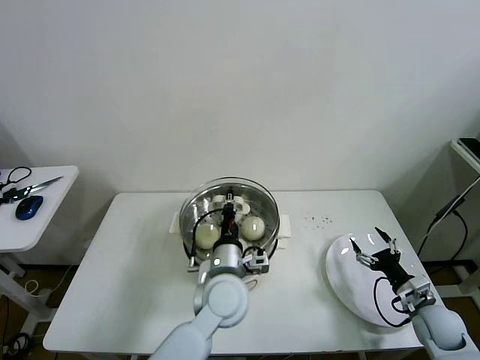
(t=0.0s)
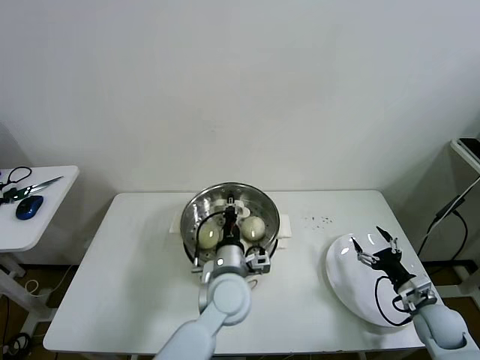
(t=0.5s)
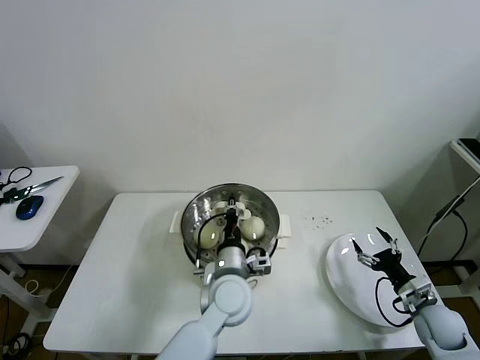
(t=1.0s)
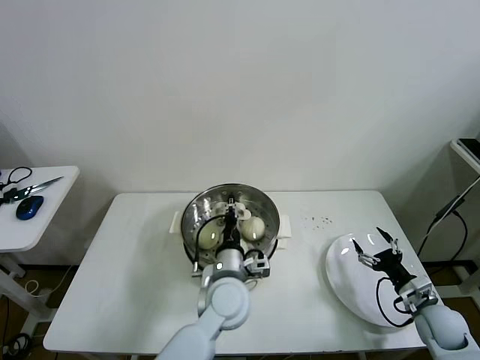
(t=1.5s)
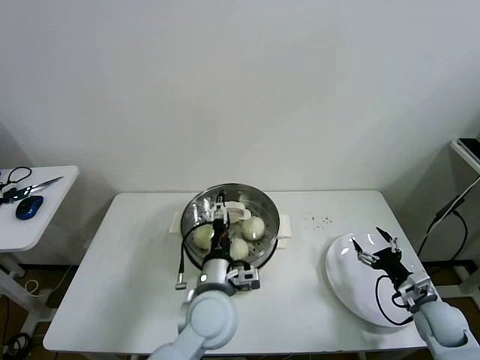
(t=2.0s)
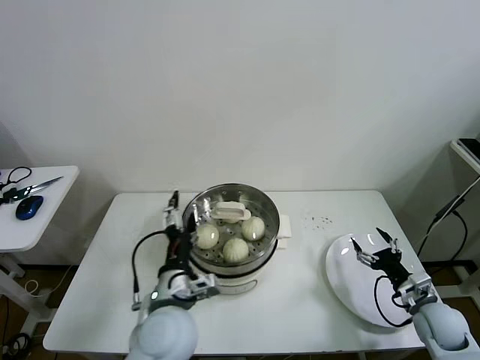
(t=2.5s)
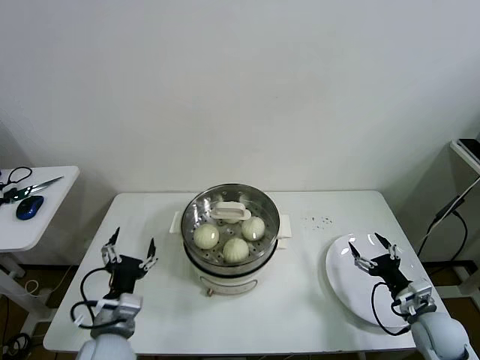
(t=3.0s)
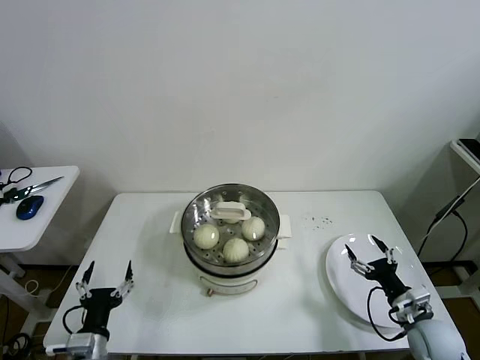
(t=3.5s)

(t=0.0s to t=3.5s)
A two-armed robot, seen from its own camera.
Task of the whole recording: take steamed baozi put them in steamer then cover it.
Step, t=0.0s - t=2.0s: Place the pot lid on the steamer with left gripper.
t=0.0s - t=2.0s: The left gripper opens.
t=2.0s - t=3.5s: The right gripper moves some 5 cm. The left gripper moves to the left and backward, some 30 cm.

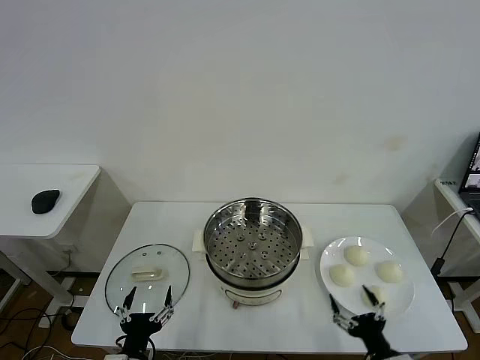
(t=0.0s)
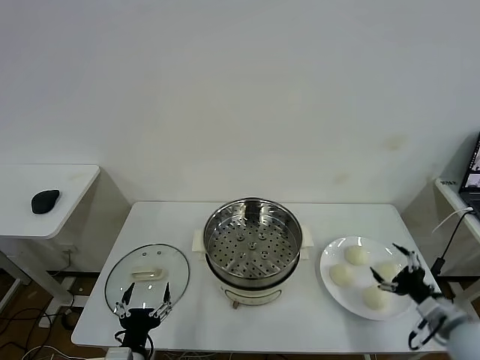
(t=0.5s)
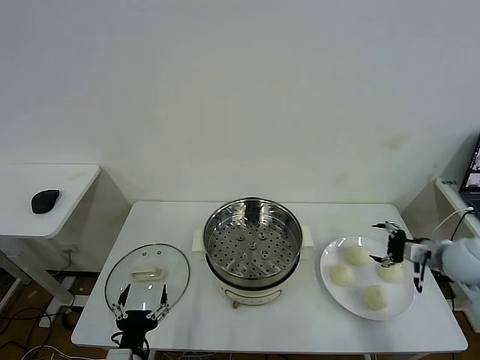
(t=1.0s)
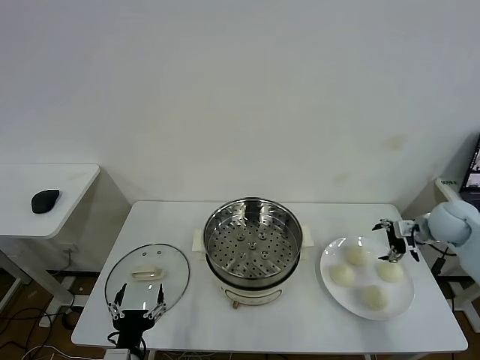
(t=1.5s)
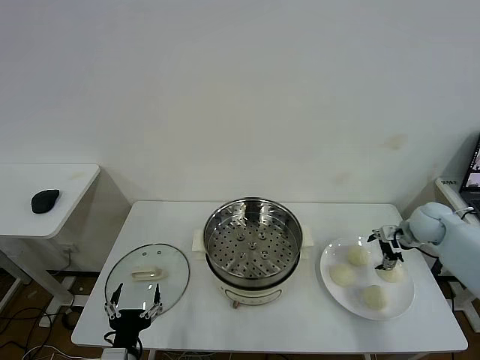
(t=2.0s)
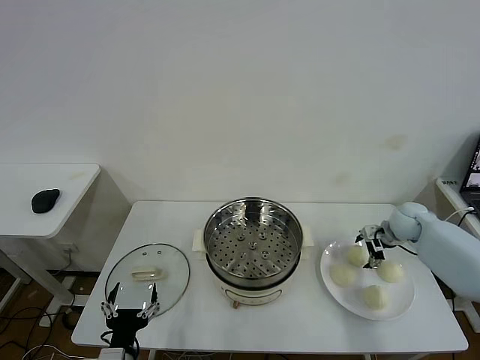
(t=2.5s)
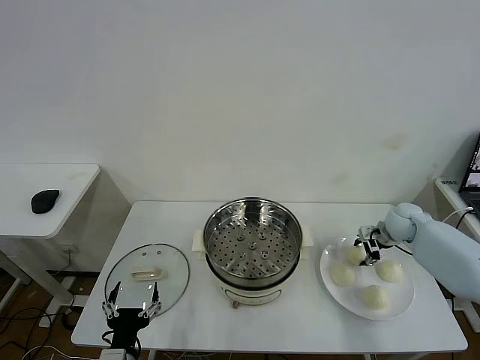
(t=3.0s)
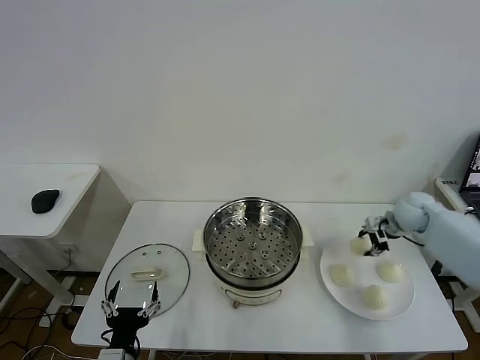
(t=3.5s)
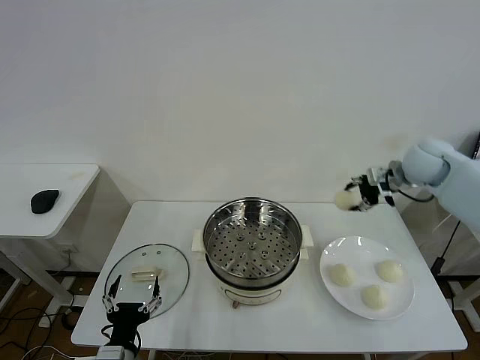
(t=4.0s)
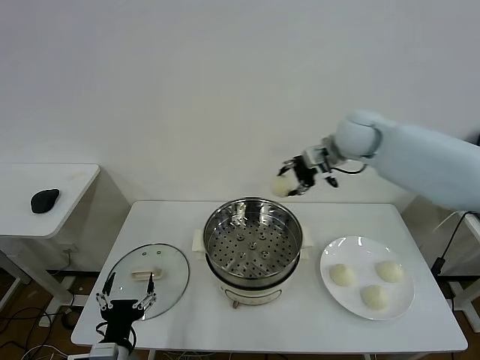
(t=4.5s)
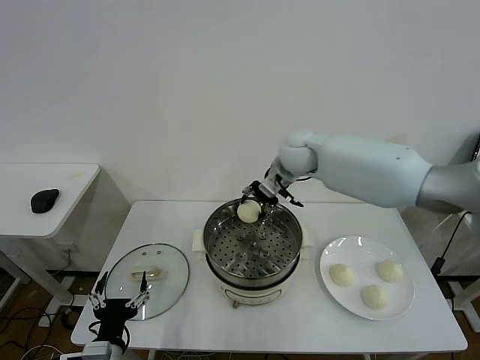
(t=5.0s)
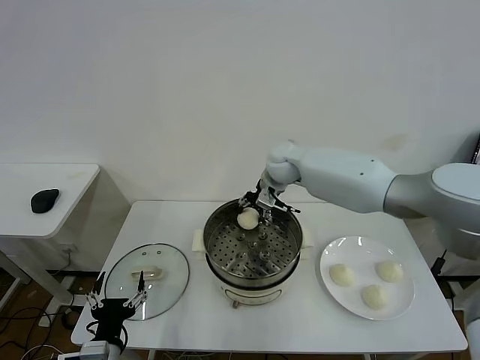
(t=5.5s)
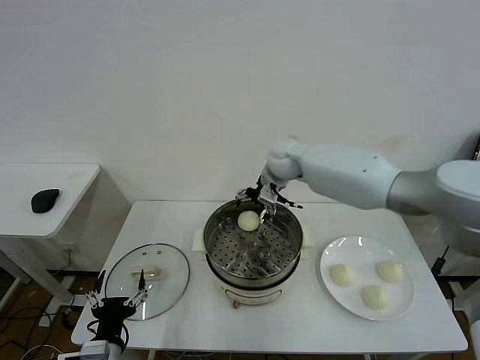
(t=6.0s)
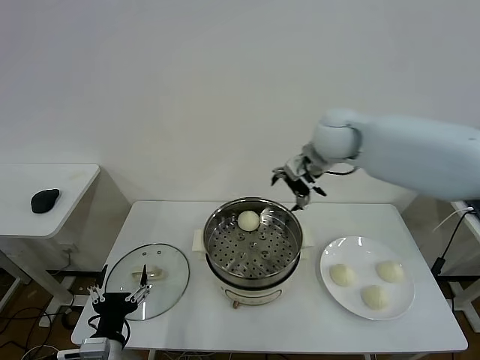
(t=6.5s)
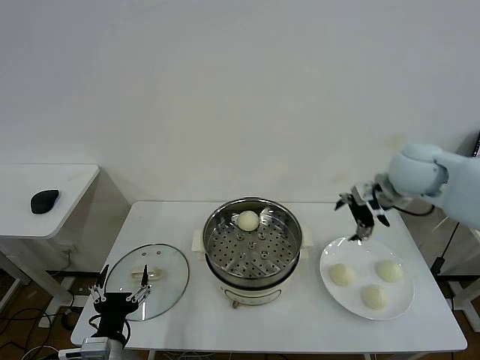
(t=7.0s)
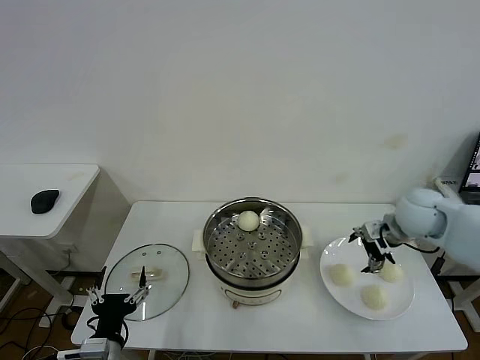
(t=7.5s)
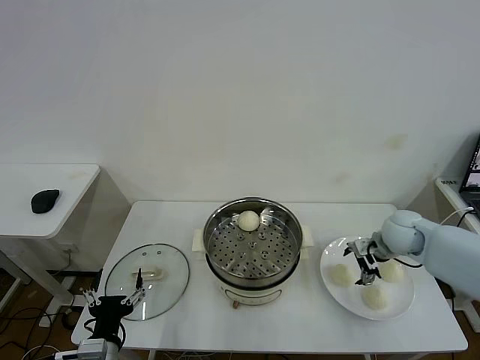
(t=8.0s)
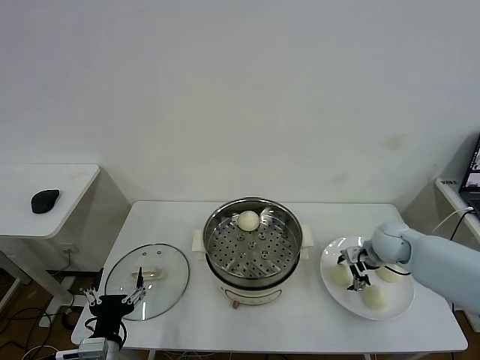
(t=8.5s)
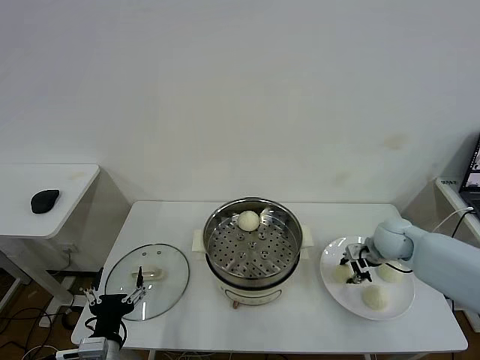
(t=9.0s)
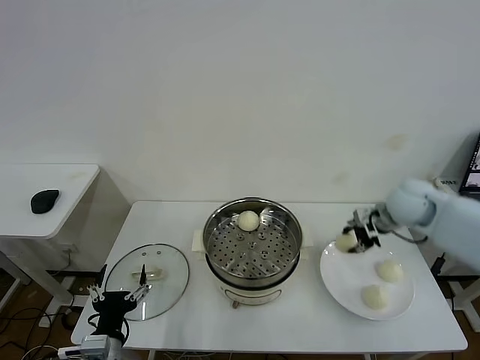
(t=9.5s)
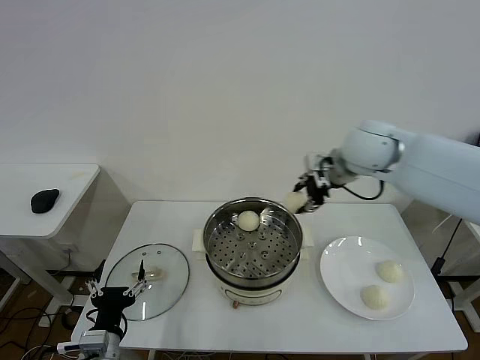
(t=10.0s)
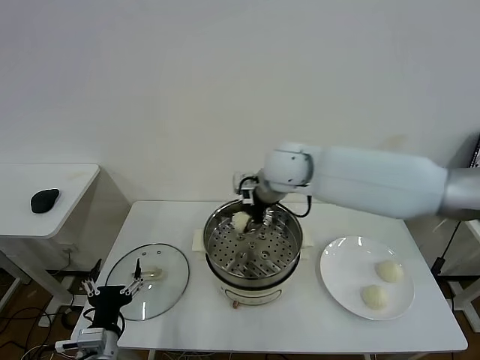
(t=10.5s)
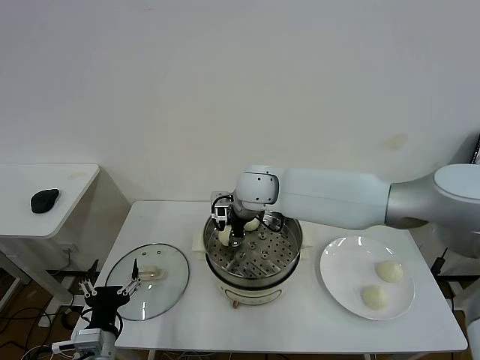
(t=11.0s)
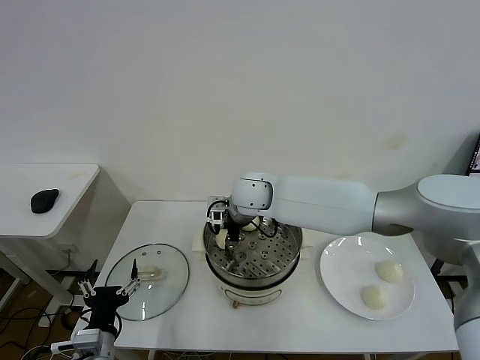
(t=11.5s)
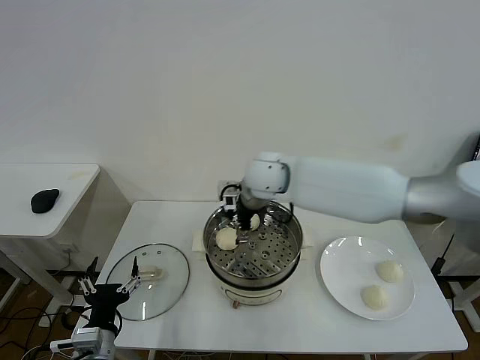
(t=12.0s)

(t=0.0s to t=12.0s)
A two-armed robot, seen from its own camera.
Task of the whole recording: take steamed baozi put them in steamer then cover it.
Step, t=0.0s - t=2.5s: Grasp the baozi in the plate with right gripper.
Step, t=3.5s - t=5.5s: Place the baozi on the steamer with right gripper.
Step, t=6.0s - t=8.5s: Grasp the baozi in the plate with right gripper.
Step, t=9.0s - t=11.5s: Place the baozi on the steamer with right gripper.
t=2.0s - t=4.0s: The right gripper heads upward and to the left, covering approximately 20 cm, and closes its fingers.
t=4.0s - t=6.0s: The right gripper travels to the left by some 25 cm, and opens its fingers.
t=6.0s - t=8.0s: The right gripper shifts some 30 cm to the right, downward and backward.
t=8.0s - t=10.0s: The right gripper travels upward and to the left by roughly 30 cm, and closes its fingers.
t=10.0s - t=12.0s: The right gripper moves to the left and downward, some 15 cm, and opens.

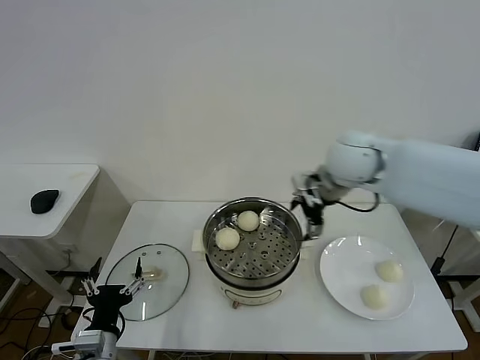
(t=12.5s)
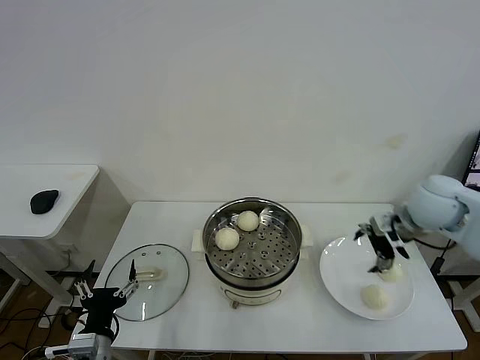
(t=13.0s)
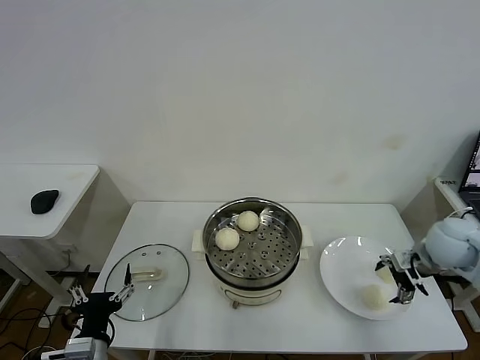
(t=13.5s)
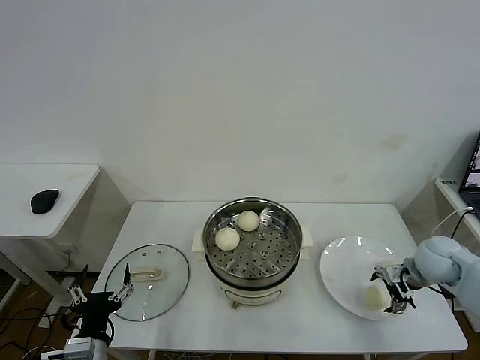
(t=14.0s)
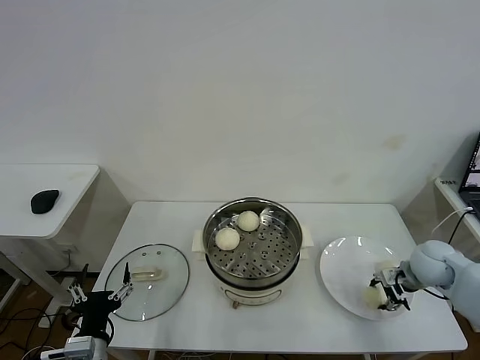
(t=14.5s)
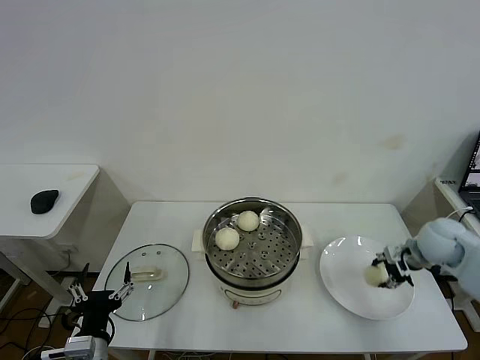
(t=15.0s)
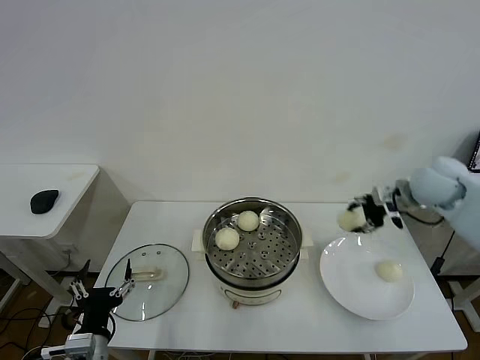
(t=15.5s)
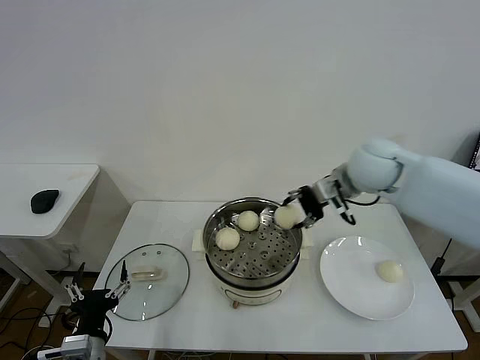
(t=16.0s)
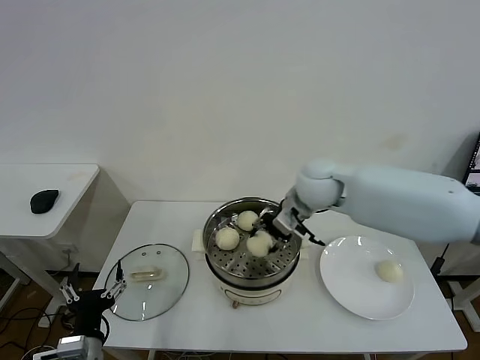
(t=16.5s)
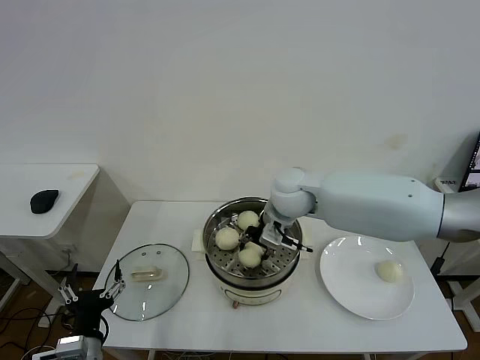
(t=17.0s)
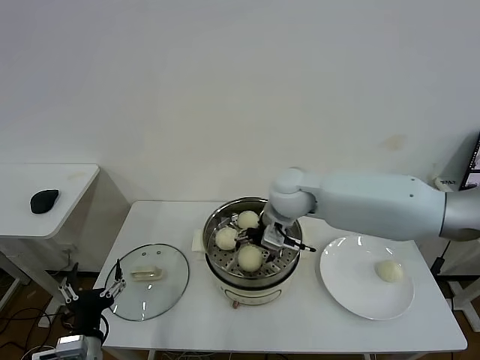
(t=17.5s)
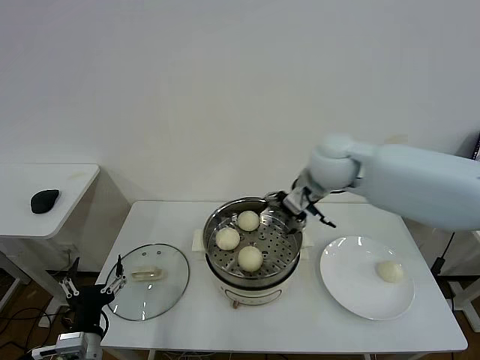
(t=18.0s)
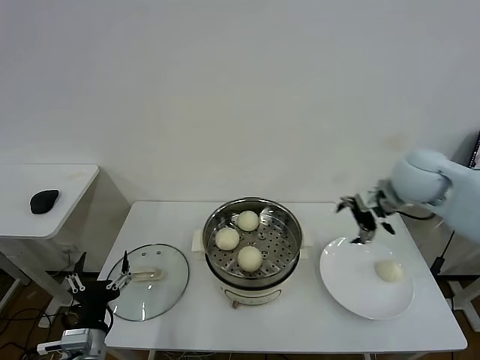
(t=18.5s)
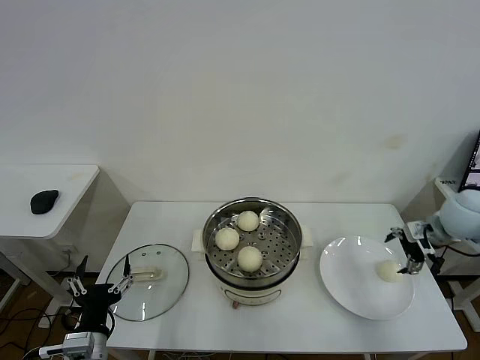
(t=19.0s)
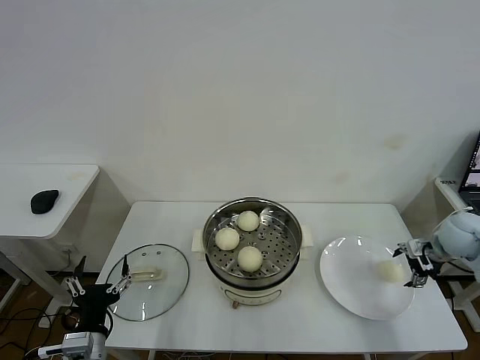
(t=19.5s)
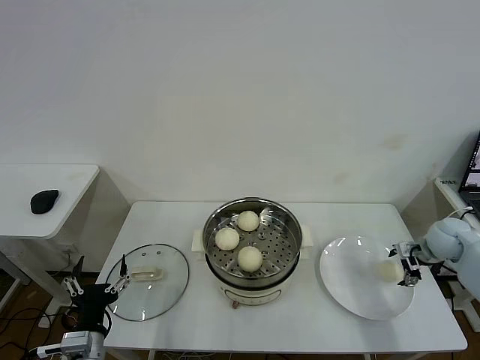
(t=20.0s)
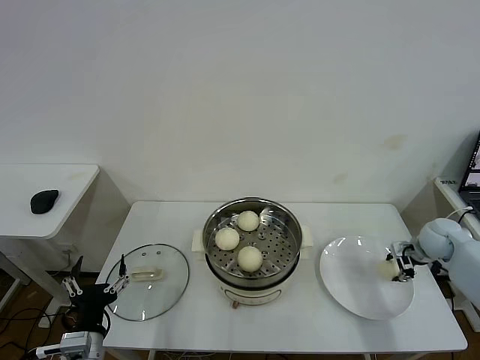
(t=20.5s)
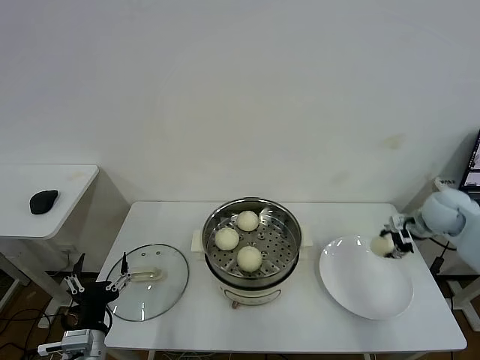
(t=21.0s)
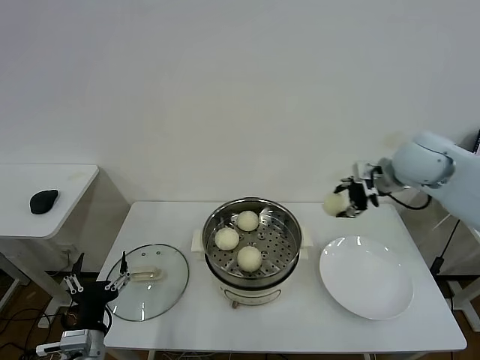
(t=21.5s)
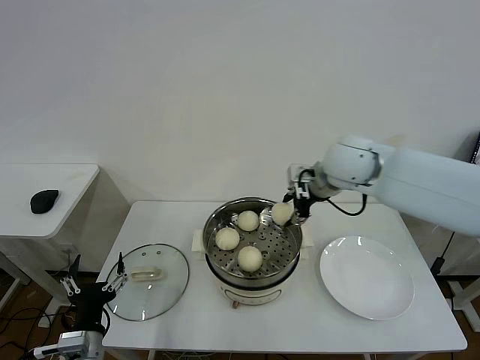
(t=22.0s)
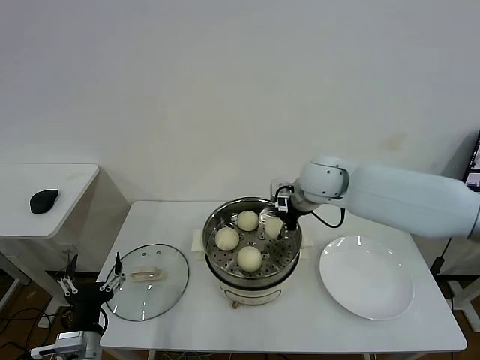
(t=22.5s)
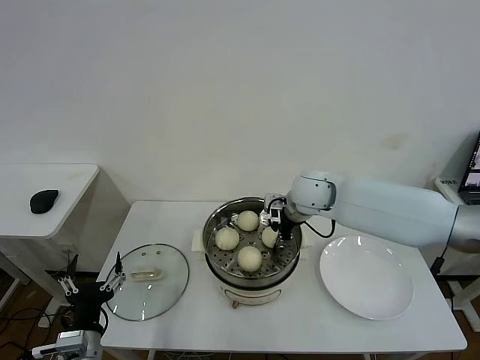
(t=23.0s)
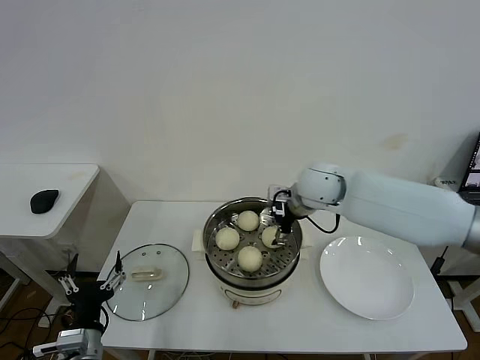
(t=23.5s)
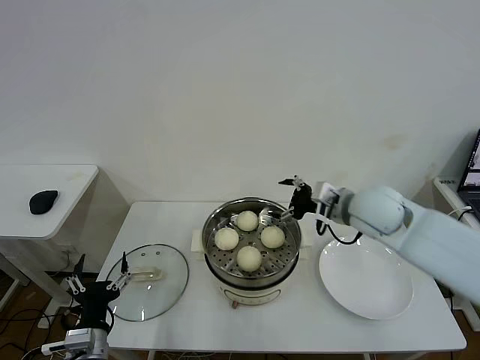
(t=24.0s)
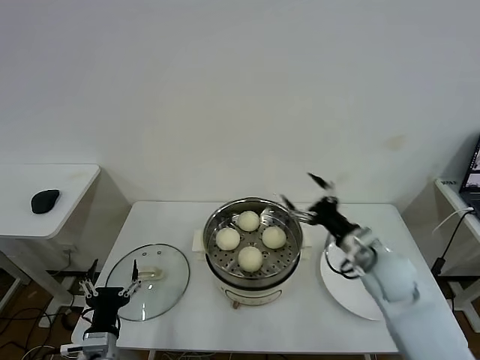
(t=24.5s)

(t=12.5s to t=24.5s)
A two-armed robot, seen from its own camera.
Task of the whole recording: take steamed baozi put them in steamer then cover it.
Step, t=12.5s - t=14.5s: Grasp the baozi in the plate with right gripper.
Step, t=15.0s - t=17.0s: Place the baozi on the steamer with right gripper.
Step, t=18.0s - t=20.0s: Grasp the baozi in the plate with right gripper.
Step, t=20.5s - t=23.5s: Place the baozi on the steamer with right gripper.
t=12.5s - t=14.5s: The right gripper heads downward and to the right, covering roughly 30 cm, and closes.
t=14.5s - t=16.5s: The right gripper moves to the left and upward, roughly 35 cm.
t=16.5s - t=18.5s: The right gripper moves to the right, approximately 20 cm, and opens its fingers.
t=18.5s - t=20.5s: The right gripper shifts approximately 25 cm downward and to the right, and closes.
t=20.5s - t=22.5s: The right gripper goes roughly 35 cm to the left and upward.
t=22.5s - t=24.5s: The right gripper heads backward, to the right and downward, covering about 25 cm, and opens up.
